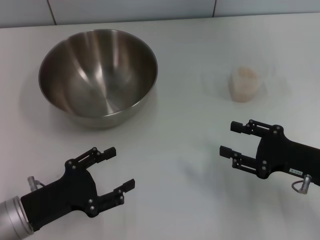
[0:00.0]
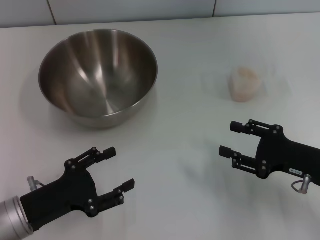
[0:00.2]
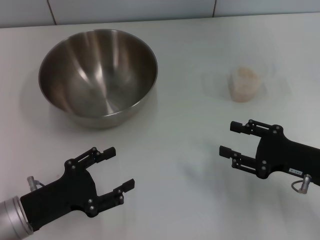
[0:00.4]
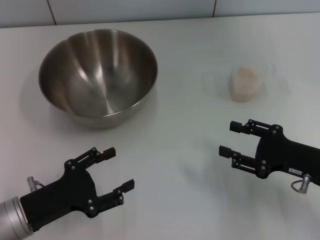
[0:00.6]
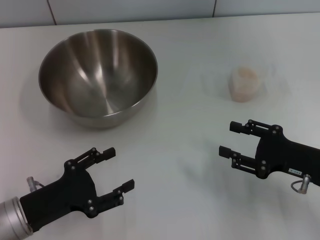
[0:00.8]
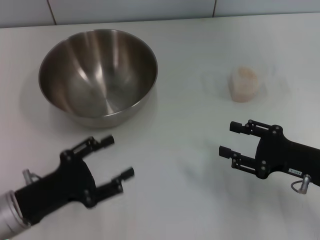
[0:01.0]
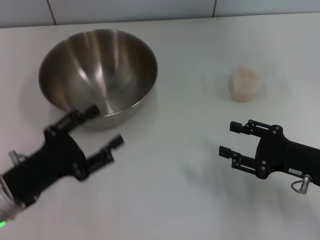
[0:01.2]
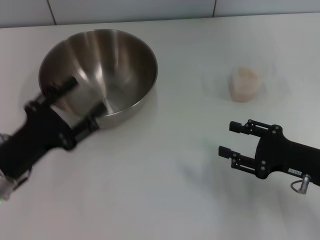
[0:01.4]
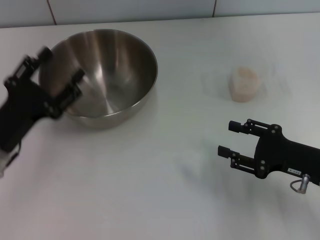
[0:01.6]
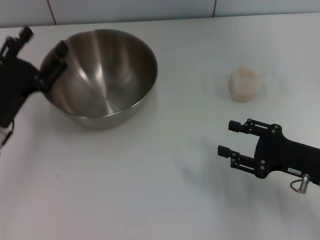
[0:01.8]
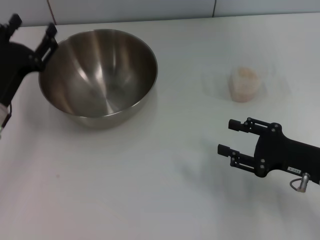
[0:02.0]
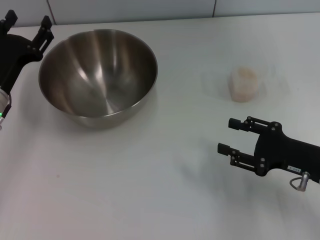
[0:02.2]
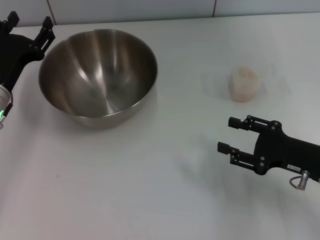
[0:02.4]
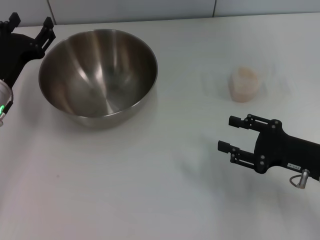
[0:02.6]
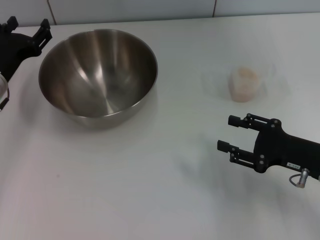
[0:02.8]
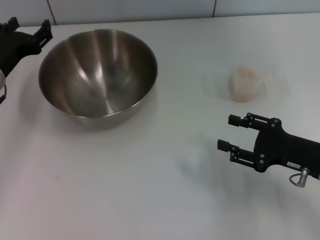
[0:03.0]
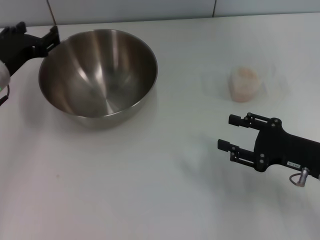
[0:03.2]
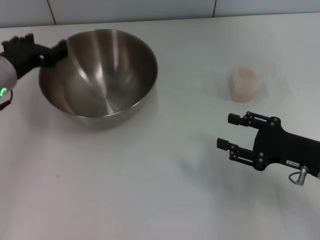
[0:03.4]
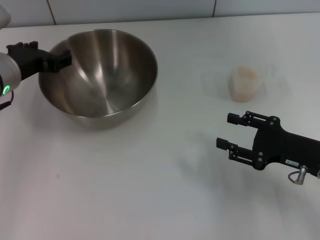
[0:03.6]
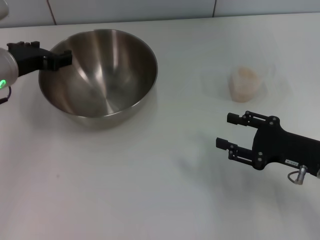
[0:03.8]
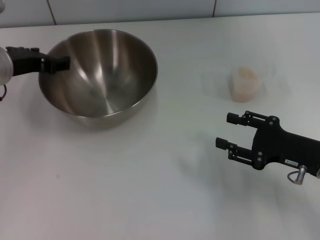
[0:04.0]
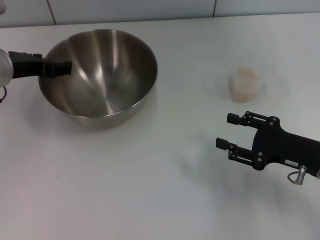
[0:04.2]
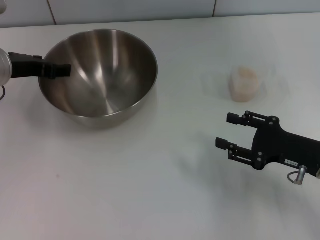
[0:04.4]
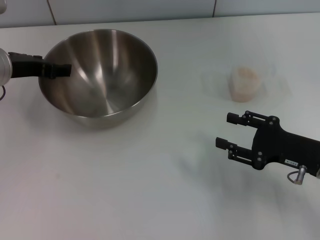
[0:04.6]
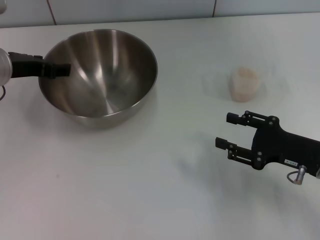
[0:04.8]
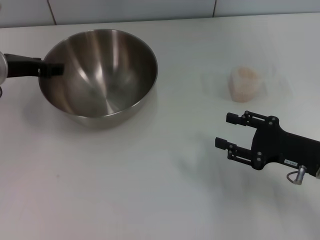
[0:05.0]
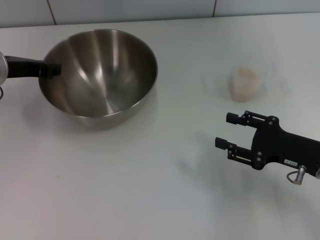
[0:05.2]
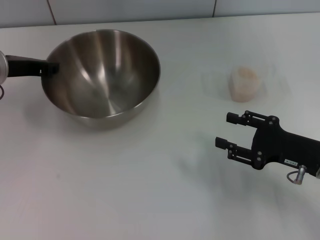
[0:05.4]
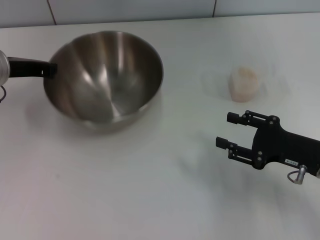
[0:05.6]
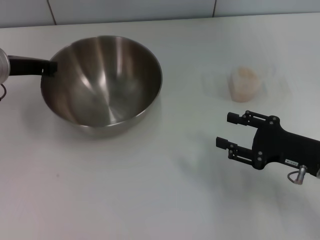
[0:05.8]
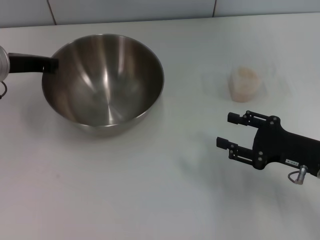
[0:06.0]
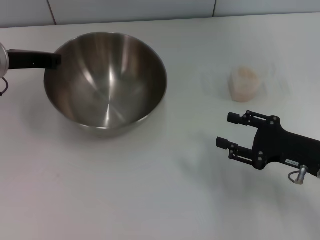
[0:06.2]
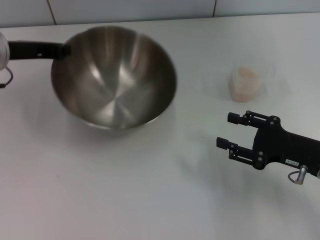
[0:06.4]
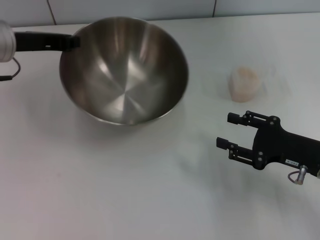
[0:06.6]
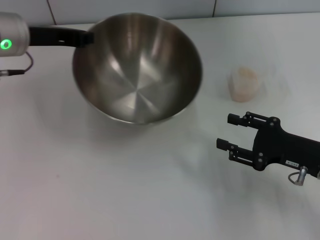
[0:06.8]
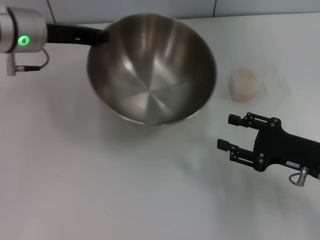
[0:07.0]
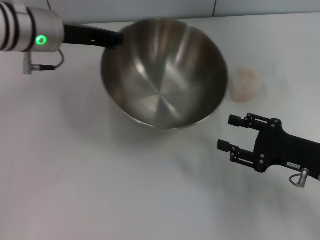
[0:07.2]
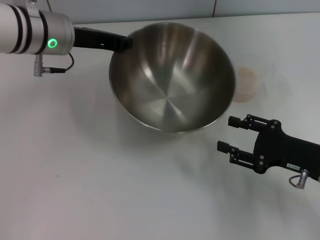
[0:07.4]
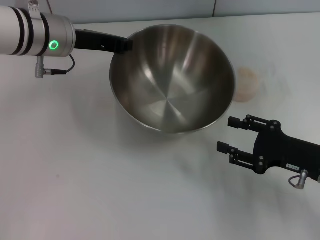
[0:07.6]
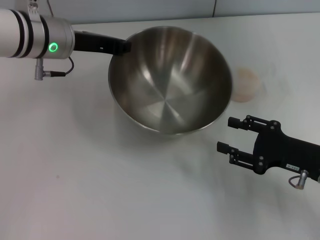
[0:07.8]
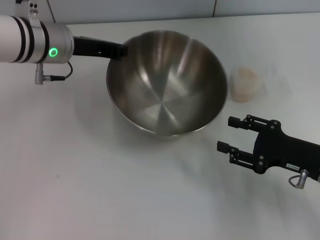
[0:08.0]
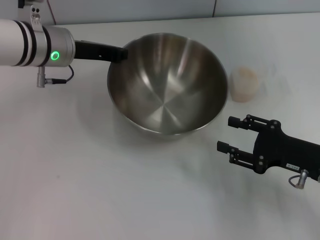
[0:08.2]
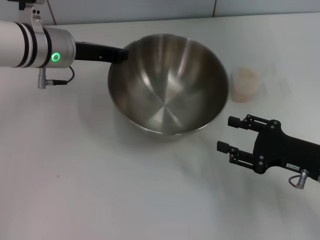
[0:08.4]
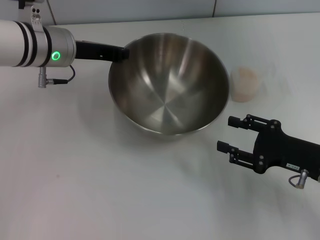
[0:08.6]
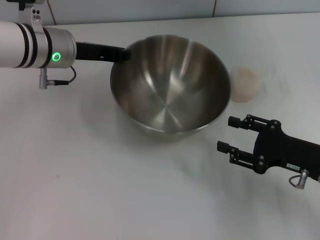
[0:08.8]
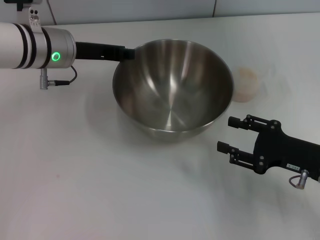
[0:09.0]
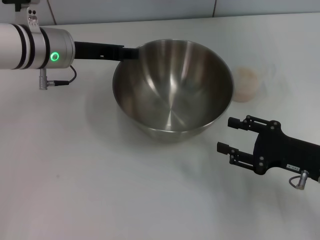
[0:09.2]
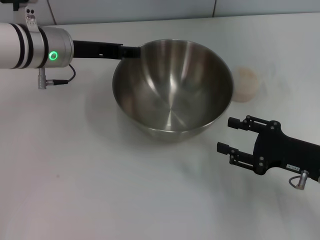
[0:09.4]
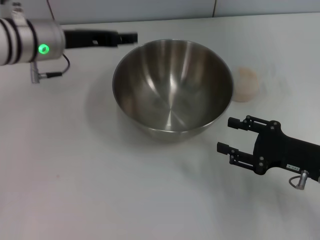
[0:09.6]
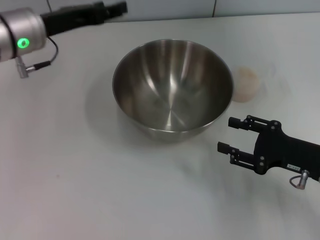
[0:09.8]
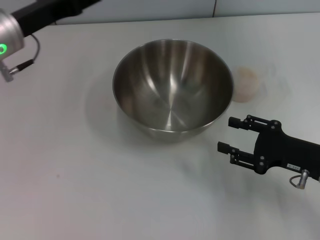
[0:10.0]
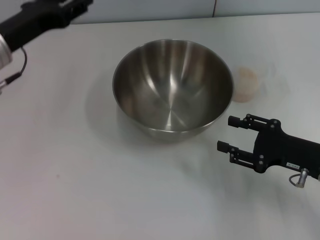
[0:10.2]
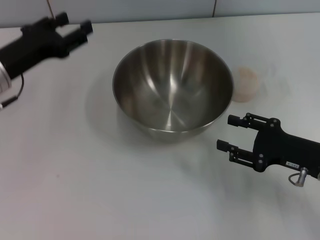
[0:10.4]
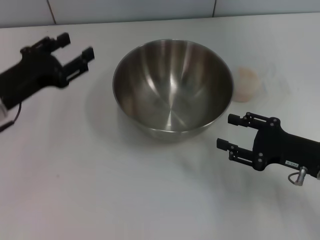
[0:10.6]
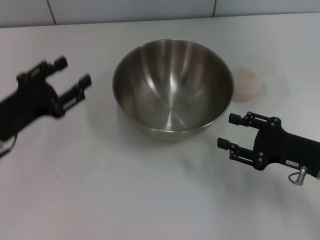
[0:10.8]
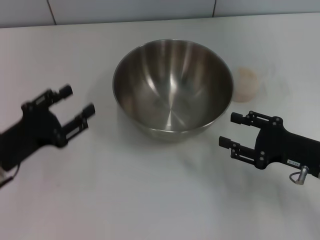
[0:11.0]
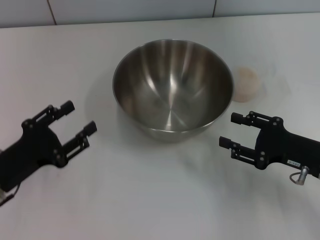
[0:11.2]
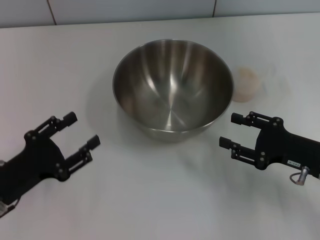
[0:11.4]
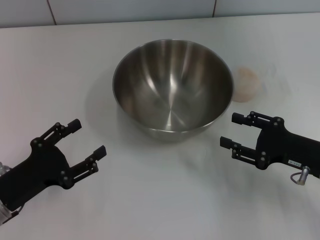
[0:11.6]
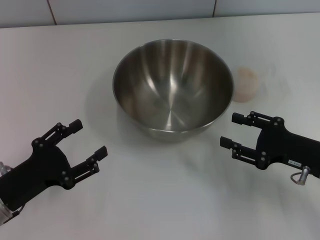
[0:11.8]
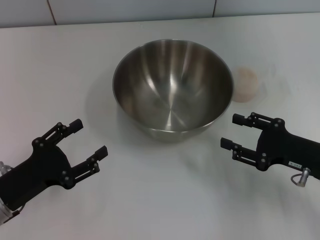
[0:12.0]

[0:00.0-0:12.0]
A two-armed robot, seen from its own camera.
Task of the whole recording: Place the bowl in the middle of the table with one hand and pour the rice from the grain cup into it with the other hand.
Step, 0:00.0 to 0:06.8: Pick up the bowl with the left gripper.
Step, 0:07.0 to 0:10.0: Place the bowl in the center of view with the left gripper.
0:00.0 to 0:01.6: The left gripper heads forward, covering approximately 5 cm.
0:01.6 to 0:03.0: The left gripper is displaced forward by approximately 10 cm.
0:03.0 to 0:04.4: The left gripper goes approximately 5 cm upward.
0:04.4 to 0:06.0: The left gripper closes its fingers.
0:06.0 to 0:07.6: The left gripper shifts about 10 cm to the right.
0:07.6 to 0:09.0: There are only small adjustments of the grippers.
0:09.0 to 0:10.4: The left gripper is displaced to the left and backward by roughly 10 cm, and opens up.
0:10.4 to 0:12.0: The left gripper heads backward and downward, covering roughly 15 cm.

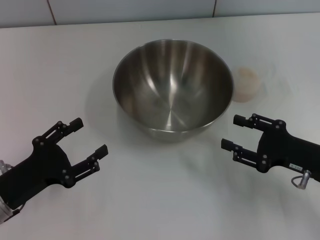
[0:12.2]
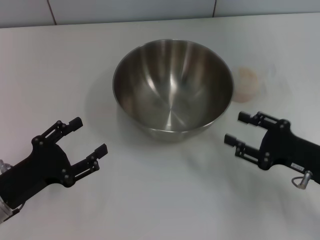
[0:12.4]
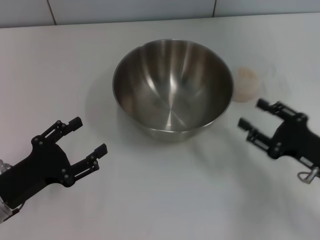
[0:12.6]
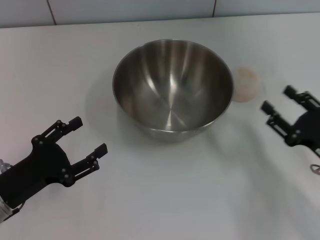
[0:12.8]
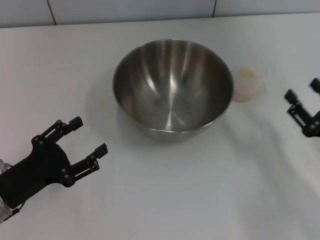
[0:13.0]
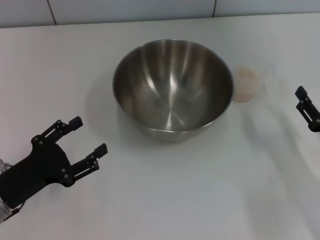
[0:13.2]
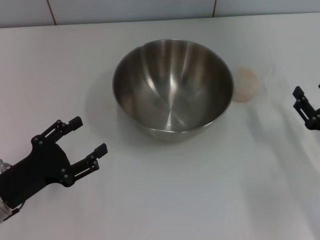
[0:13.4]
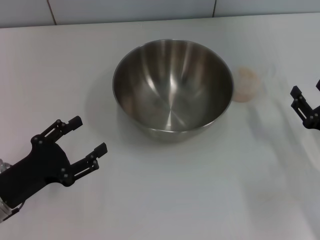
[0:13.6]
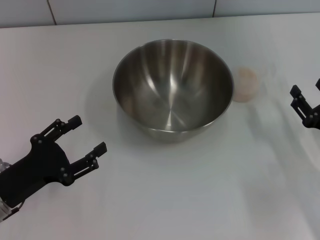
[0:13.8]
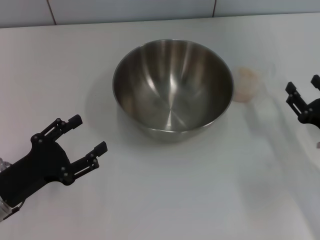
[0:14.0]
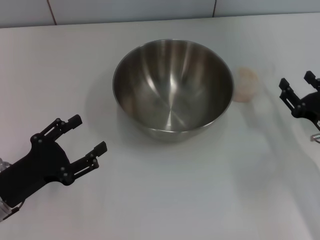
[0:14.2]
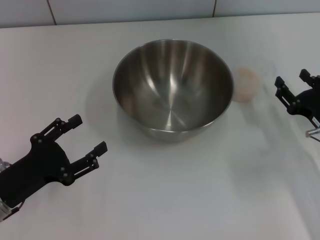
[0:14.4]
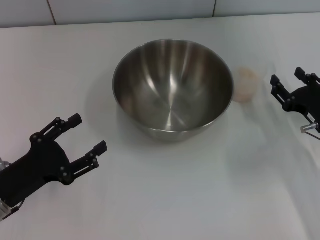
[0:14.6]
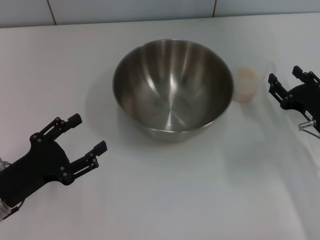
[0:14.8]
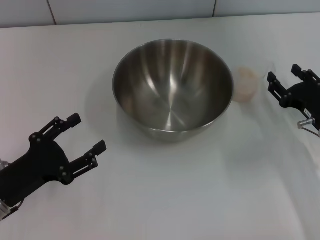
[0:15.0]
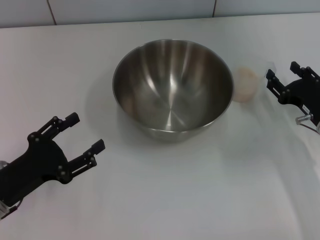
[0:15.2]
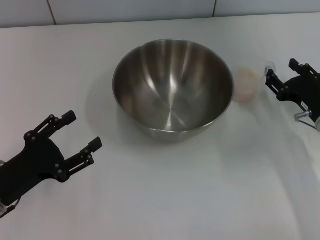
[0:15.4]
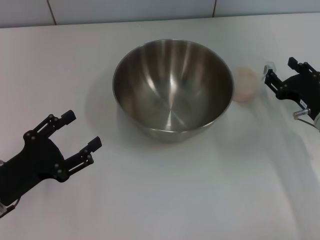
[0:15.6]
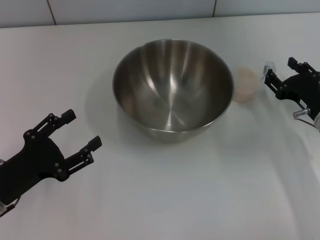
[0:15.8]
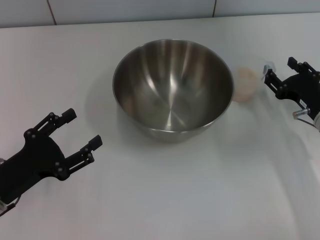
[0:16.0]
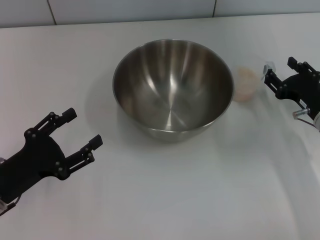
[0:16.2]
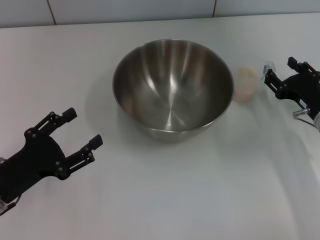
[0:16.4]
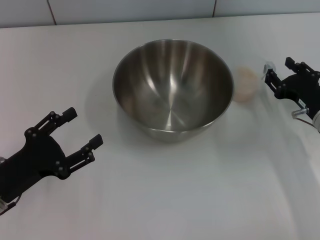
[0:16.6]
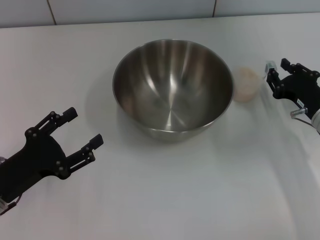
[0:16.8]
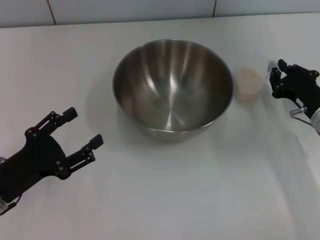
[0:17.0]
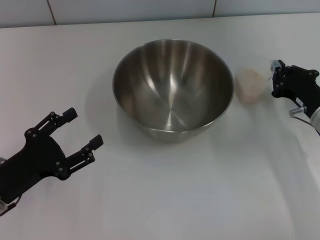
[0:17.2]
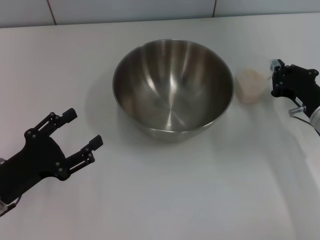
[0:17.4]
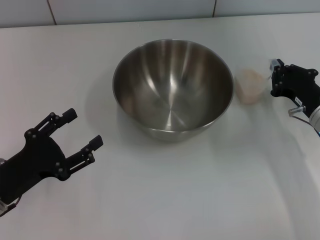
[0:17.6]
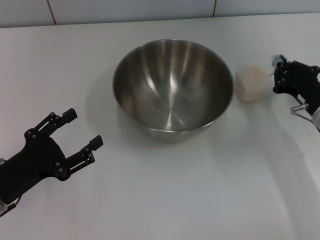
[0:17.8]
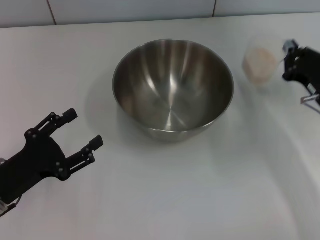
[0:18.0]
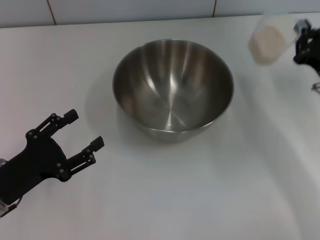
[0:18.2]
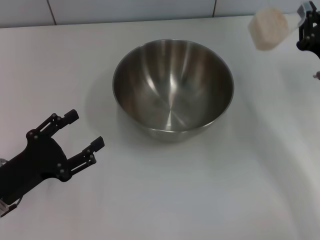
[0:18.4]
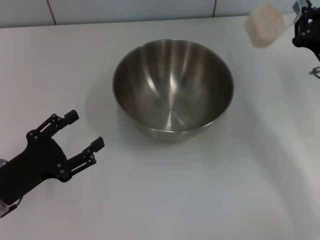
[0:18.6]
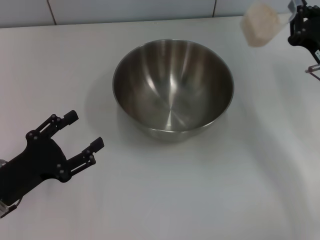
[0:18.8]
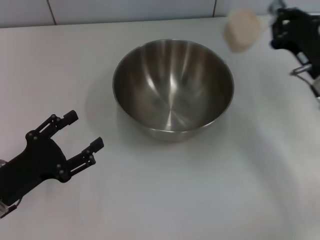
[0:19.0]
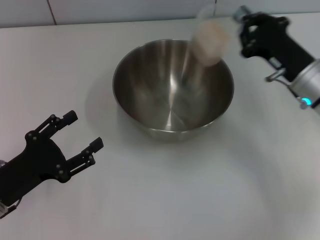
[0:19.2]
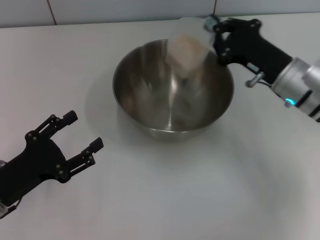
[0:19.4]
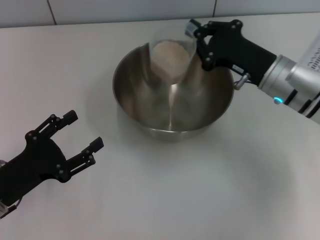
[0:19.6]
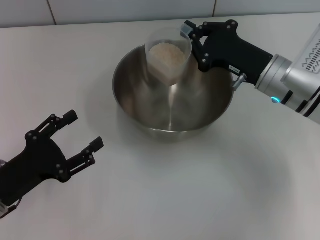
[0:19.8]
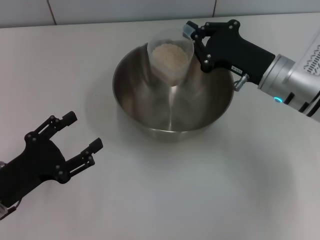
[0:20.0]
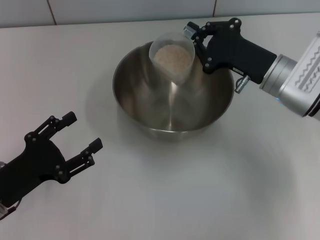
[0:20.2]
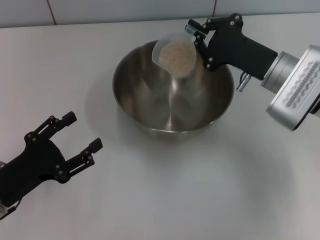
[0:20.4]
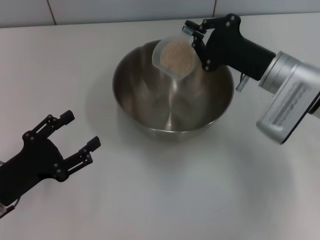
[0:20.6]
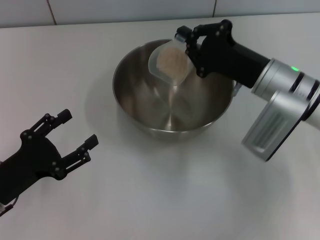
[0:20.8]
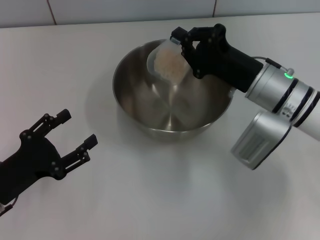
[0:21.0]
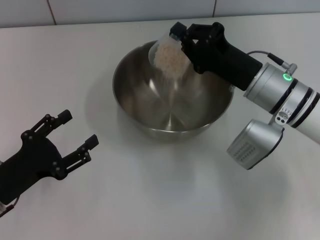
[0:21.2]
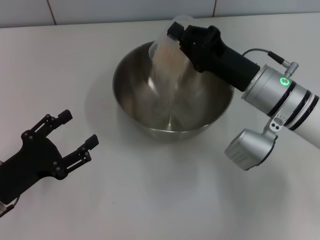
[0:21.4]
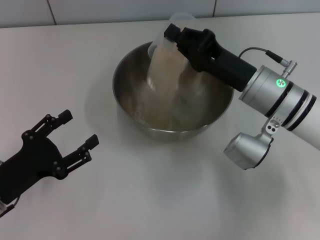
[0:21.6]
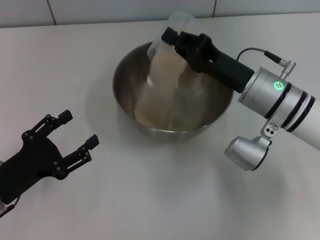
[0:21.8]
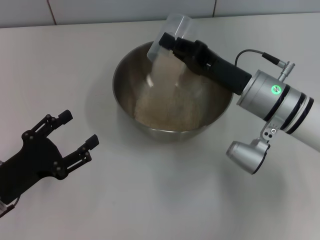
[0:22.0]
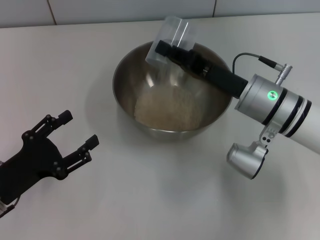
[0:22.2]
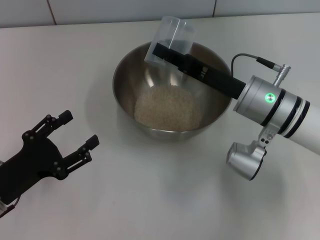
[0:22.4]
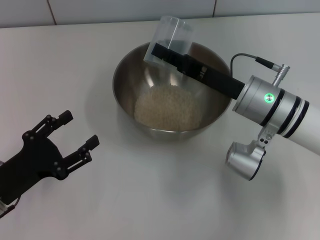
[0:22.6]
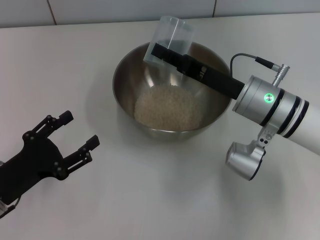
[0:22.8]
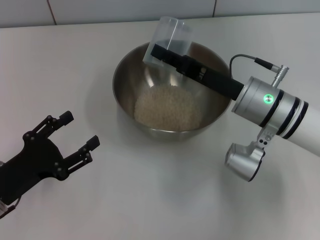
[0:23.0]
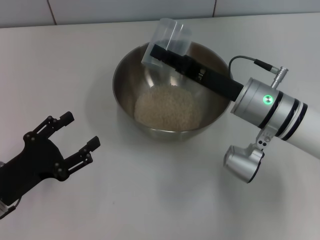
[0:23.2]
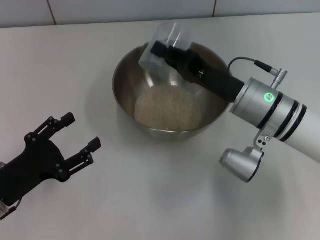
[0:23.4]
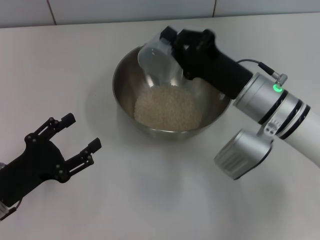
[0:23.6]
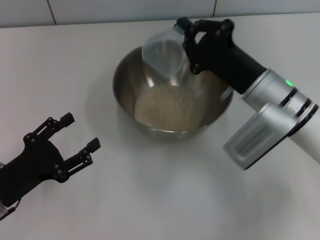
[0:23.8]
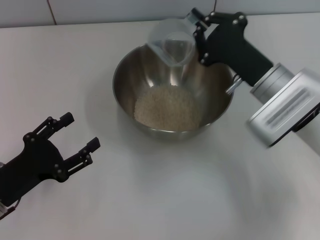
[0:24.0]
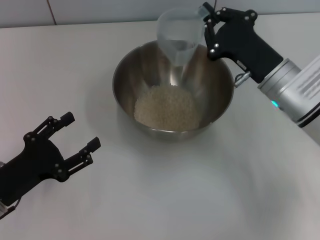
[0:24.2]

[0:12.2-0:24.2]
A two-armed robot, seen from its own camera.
Task of the whole recording: Place the bowl in the middle of the table with one hand and pour the rice from the grain cup into it with the other hand.
Step, 0:12.2 to 0:18.6: Pick up the cup with rice in it with the right gripper.
0:13.8 to 0:15.2: The right gripper is displaced forward by some 5 cm.
0:15.2 to 0:16.6: Both grippers stay put.
0:16.6 to 0:18.2: The right gripper closes up.
0:18.2 to 0:19.8: The right gripper heads to the left, covering approximately 10 cm.
